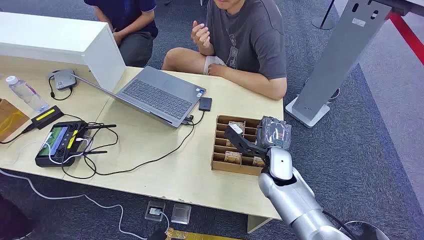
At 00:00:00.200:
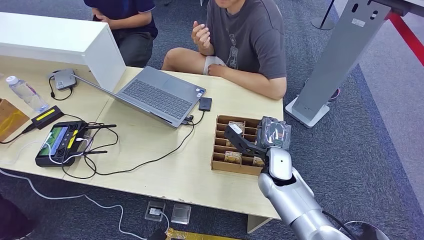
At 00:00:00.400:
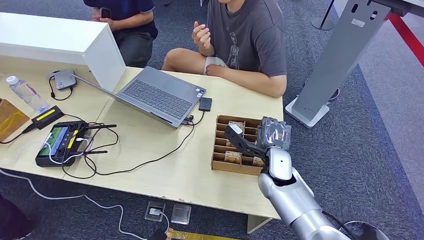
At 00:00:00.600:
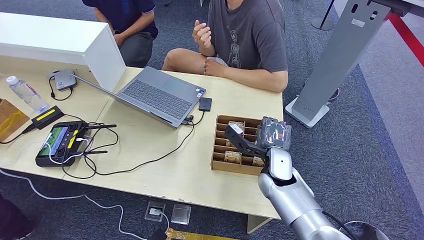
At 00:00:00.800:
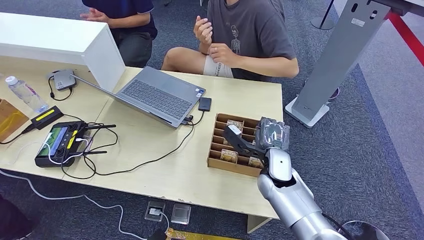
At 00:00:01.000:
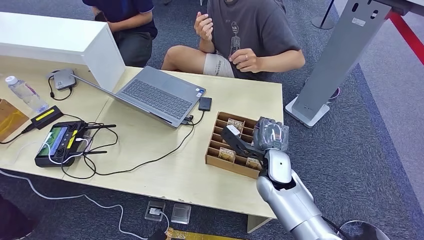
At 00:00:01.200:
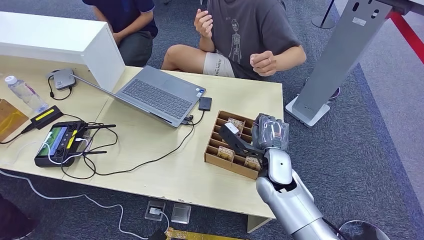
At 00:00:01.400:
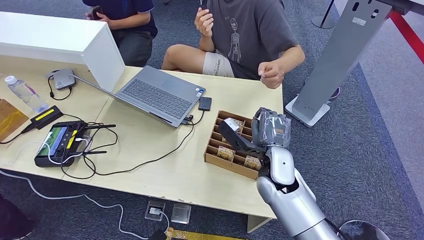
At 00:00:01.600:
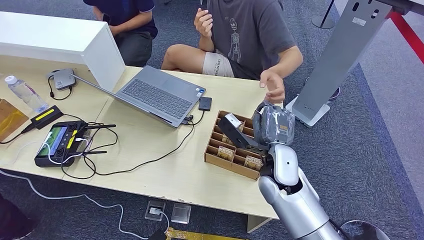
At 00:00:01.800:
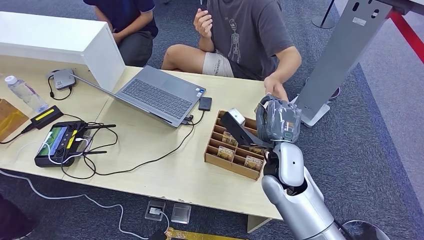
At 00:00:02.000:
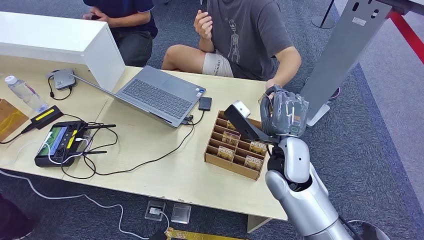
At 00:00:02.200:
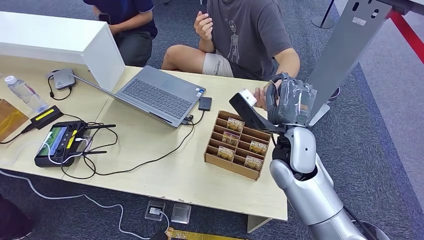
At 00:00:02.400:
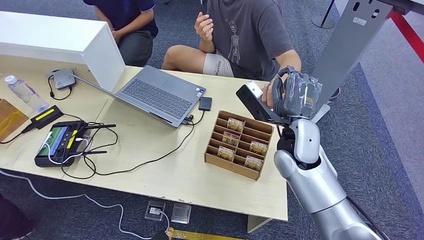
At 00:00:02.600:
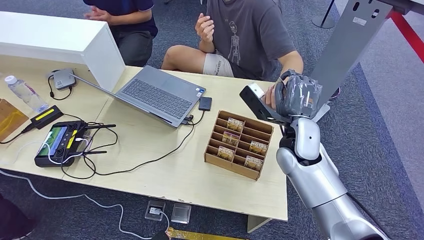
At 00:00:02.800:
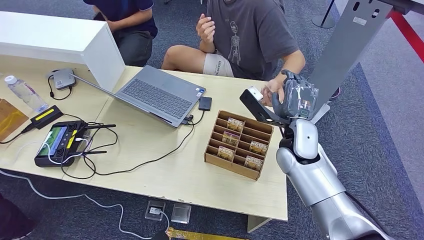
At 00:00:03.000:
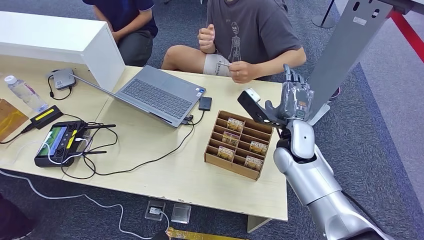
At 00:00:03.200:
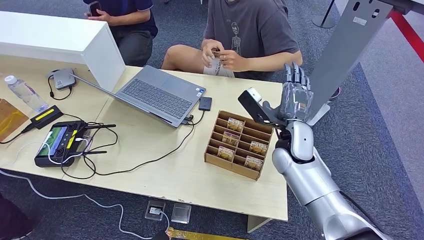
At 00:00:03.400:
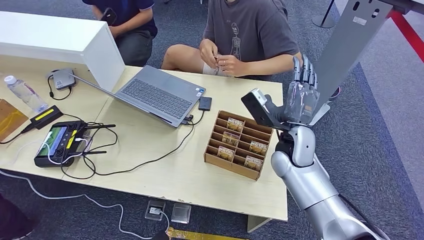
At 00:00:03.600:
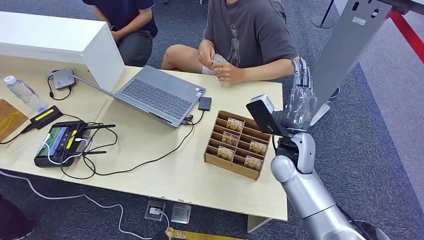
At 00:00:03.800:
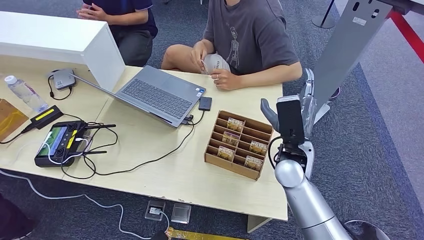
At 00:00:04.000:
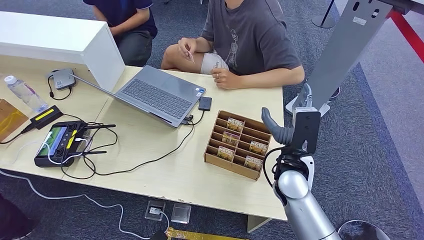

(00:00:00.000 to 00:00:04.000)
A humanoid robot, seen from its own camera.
Step, 00:00:00.000 - 00:00:01.600: Pick up the key card from the card box.
Step, 00:00:02.000 - 00:00:04.000: Hand the key card to the target.
00:00:01.400 - 00:00:02.600: The right hand travels upward by some 5 cm.
00:00:02.600 - 00:00:04.000: The right hand shifts approximately 5 cm backward.

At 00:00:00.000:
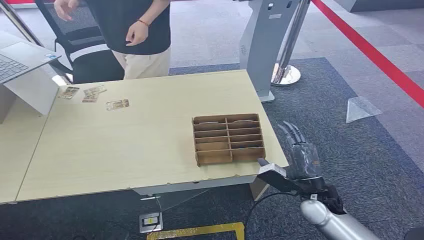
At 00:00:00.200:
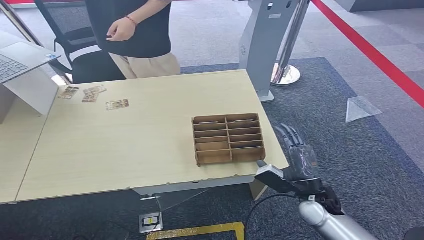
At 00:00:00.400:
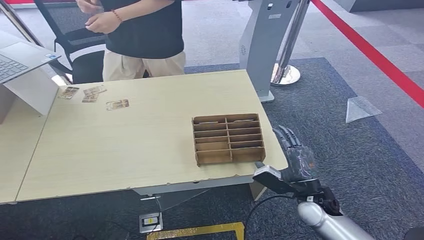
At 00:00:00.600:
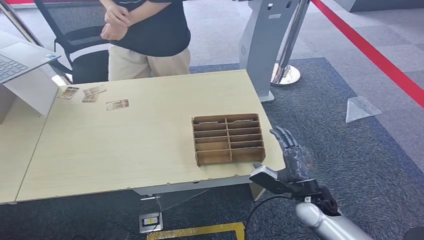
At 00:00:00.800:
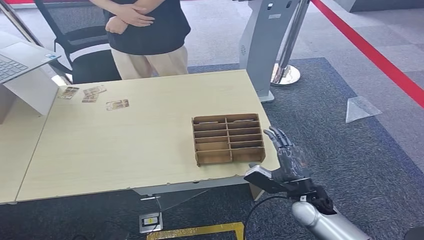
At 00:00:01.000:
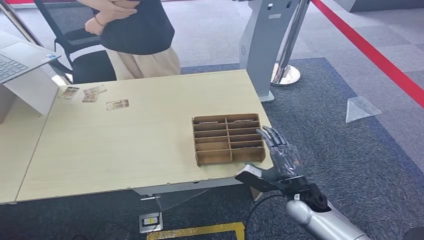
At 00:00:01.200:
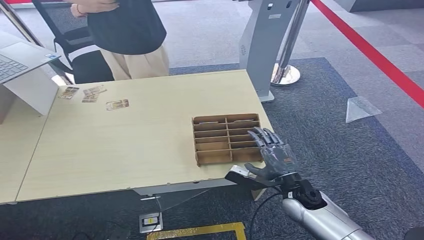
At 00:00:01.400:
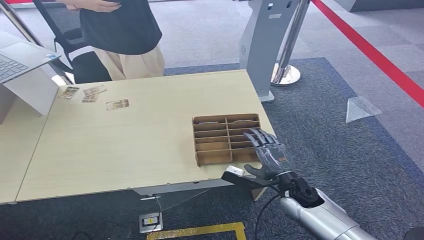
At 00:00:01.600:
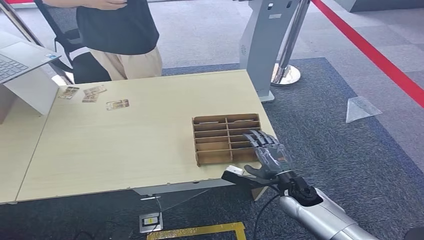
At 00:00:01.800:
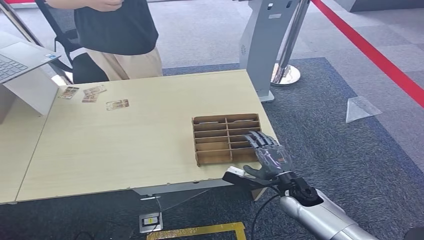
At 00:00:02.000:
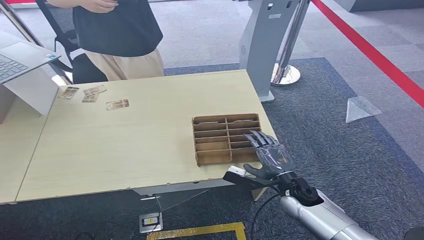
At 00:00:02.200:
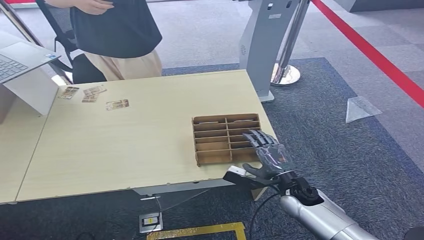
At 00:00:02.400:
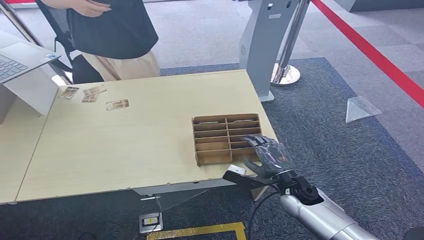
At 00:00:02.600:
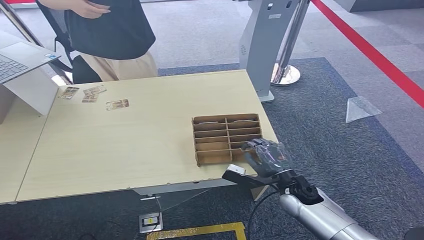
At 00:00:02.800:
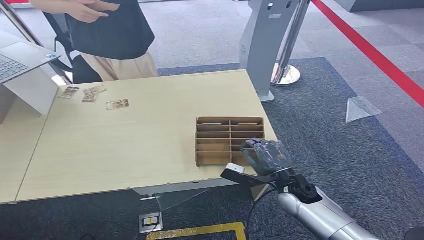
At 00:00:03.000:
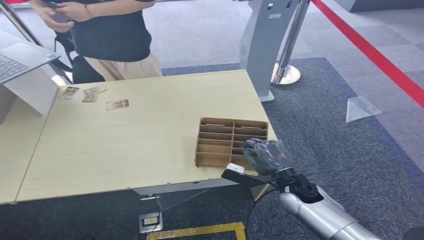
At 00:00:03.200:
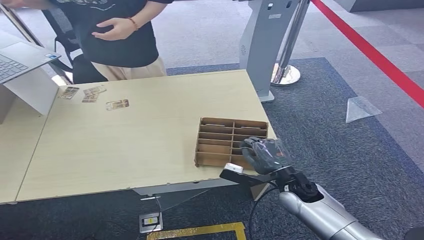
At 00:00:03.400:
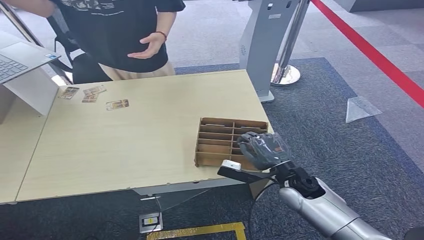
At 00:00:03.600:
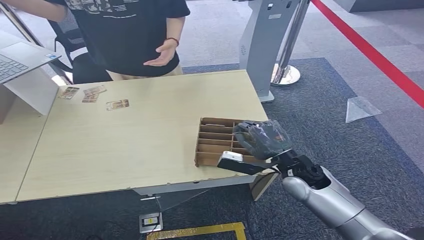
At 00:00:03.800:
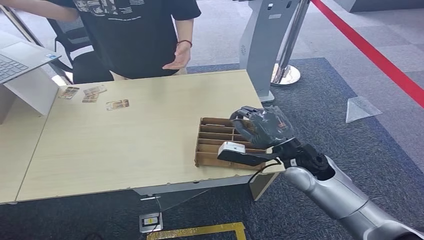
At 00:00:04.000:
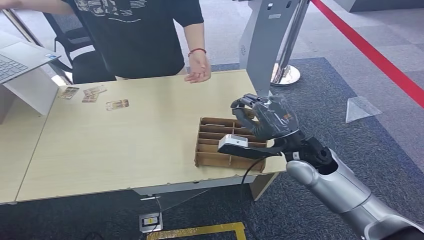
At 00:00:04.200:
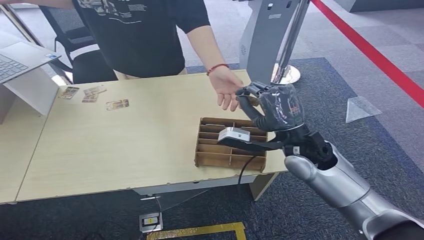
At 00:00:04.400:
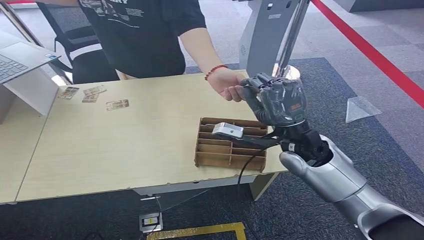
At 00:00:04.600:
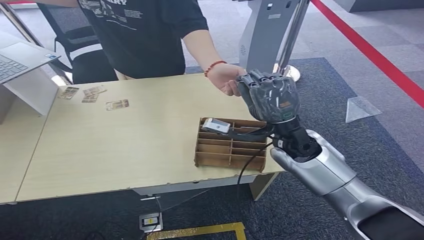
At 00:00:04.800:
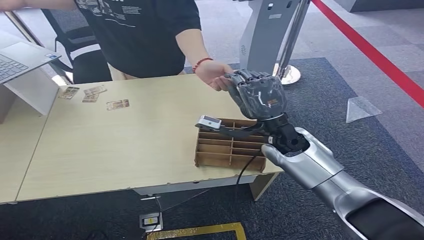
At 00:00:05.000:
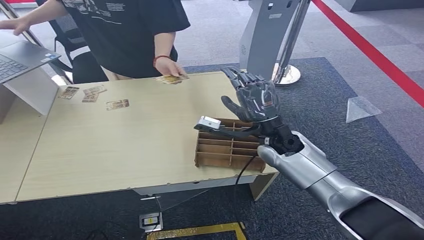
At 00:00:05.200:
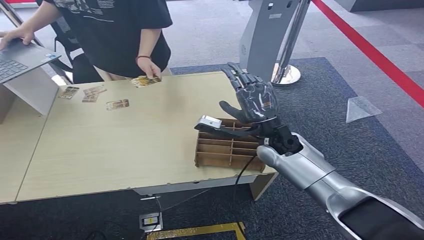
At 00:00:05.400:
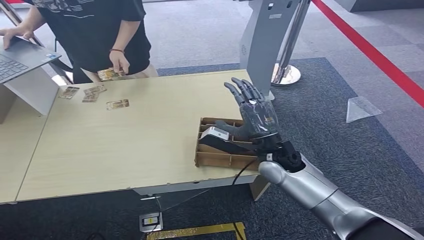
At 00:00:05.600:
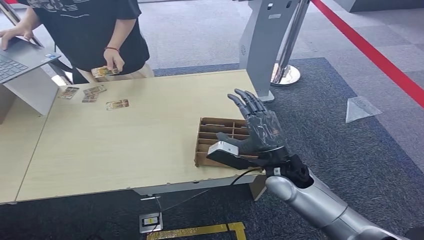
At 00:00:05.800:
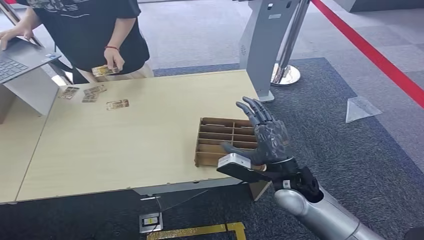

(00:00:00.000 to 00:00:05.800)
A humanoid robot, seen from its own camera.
Step, 00:00:00.000 - 00:00:03.800: Pick up the key card from the card box.
Step, 00:00:04.000 - 00:00:05.600: Hand the key card to the target.
00:00:01.400 - 00:00:02.800: There are only small adjustments of the hands.
